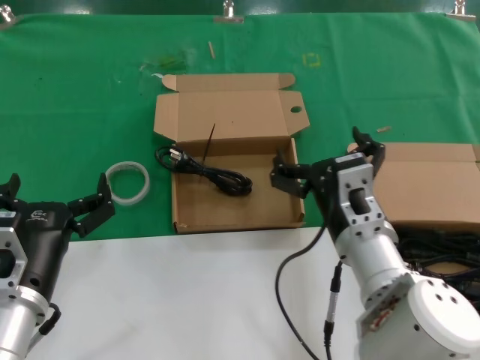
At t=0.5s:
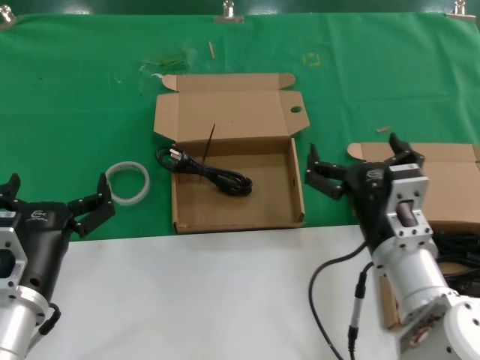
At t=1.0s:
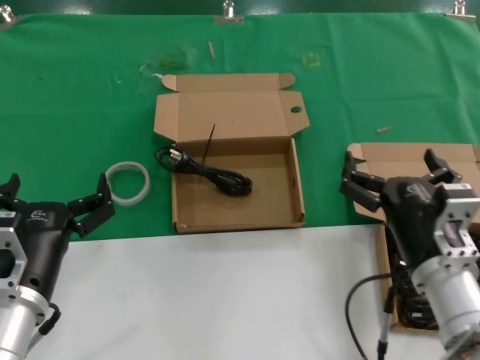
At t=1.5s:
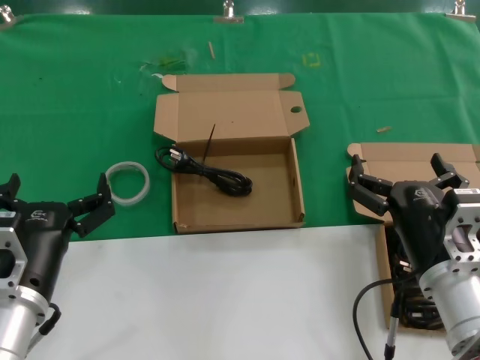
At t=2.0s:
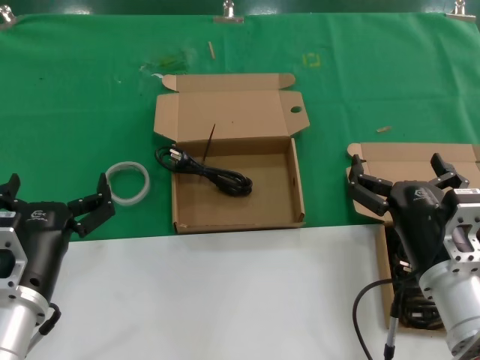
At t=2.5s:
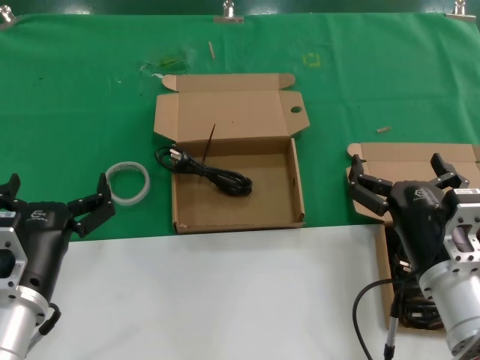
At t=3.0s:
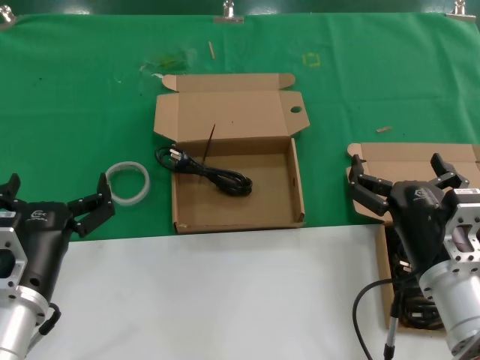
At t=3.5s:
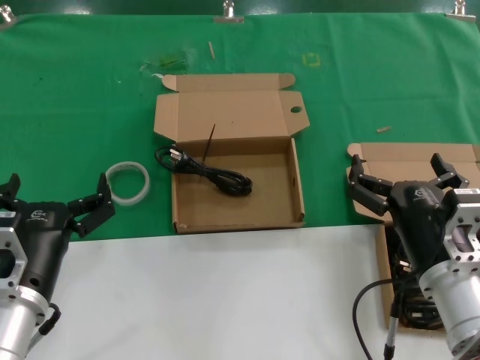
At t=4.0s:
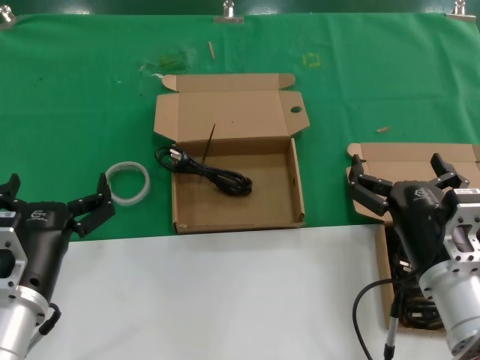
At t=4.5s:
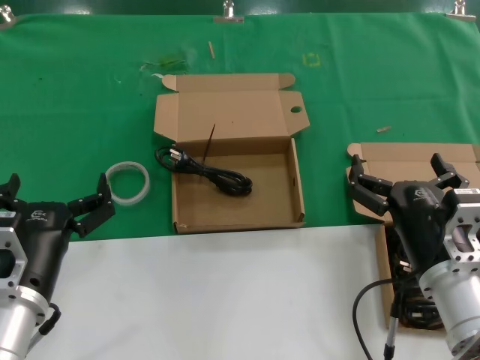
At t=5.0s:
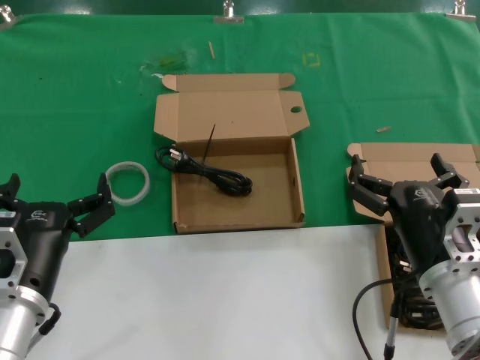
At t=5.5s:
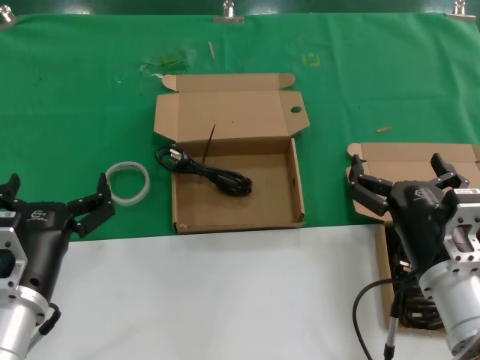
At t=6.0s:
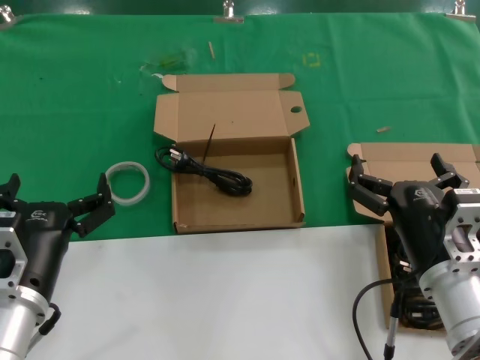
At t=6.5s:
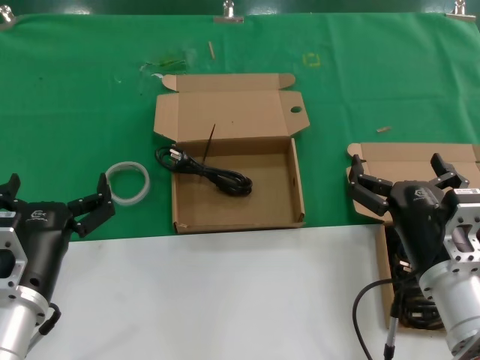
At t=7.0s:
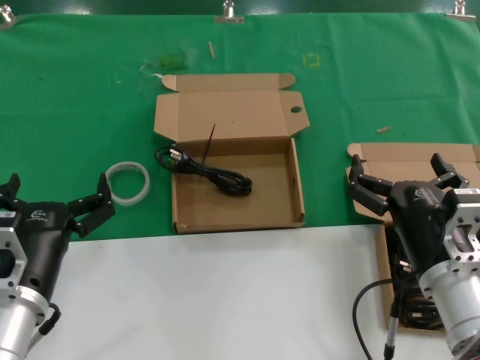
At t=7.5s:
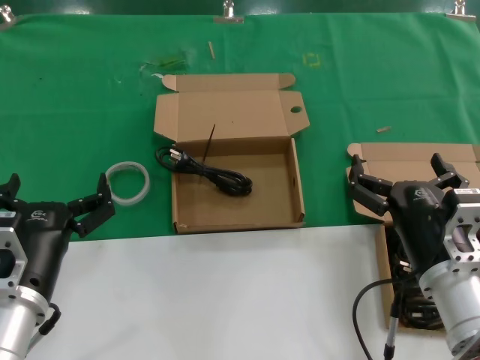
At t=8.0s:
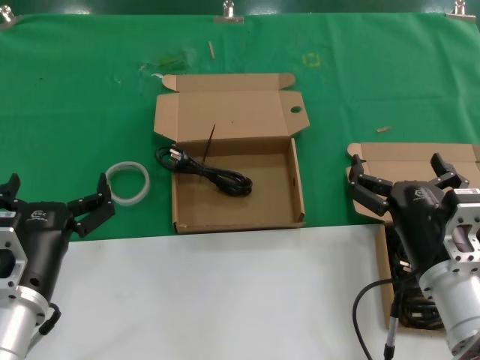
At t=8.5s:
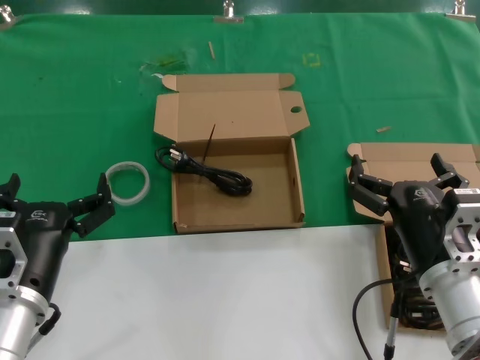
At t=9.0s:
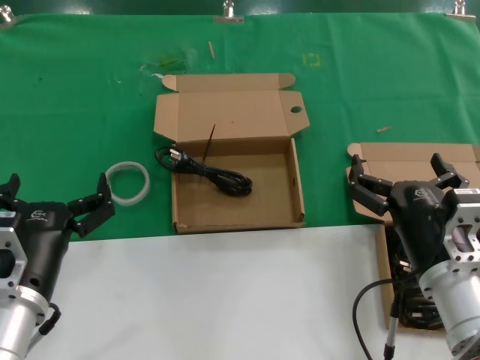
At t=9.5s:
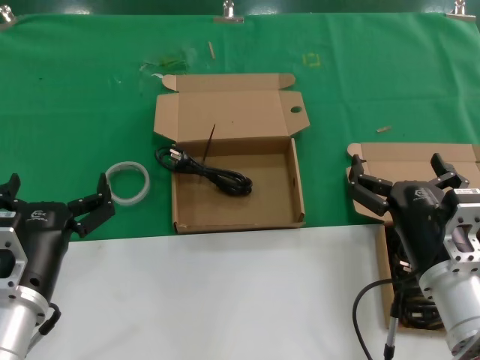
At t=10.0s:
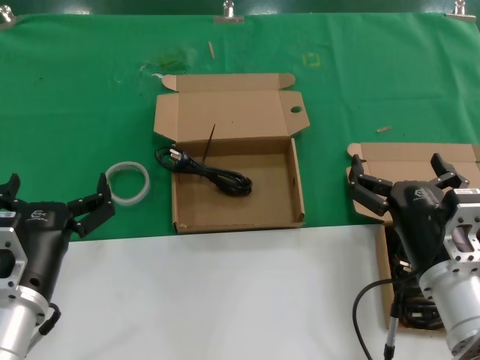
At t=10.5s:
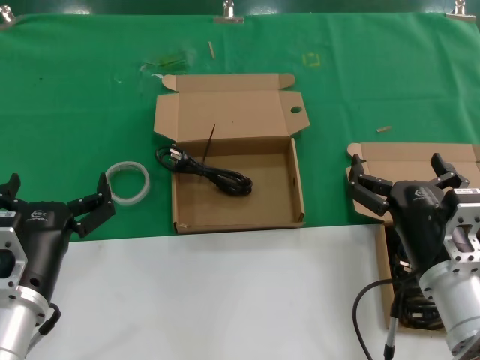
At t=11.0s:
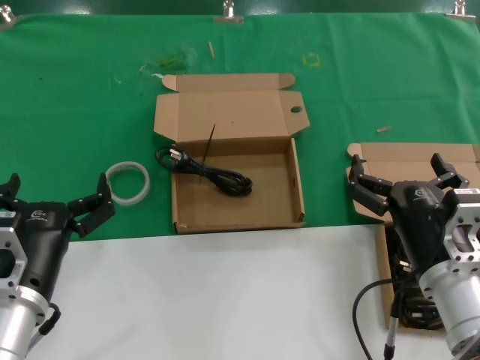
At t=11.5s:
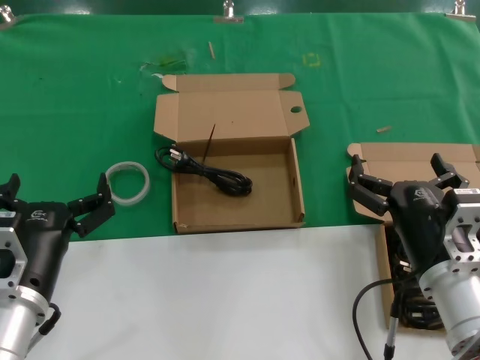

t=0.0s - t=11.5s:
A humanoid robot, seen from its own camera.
Task of the whole recording: take the parts from the box containing them and put them into an empty box.
t=0.0s - t=2.0s: The right hand shifts about 10 cm to the right.
t=2.0s - t=11.5s: The two hands keep their place.
